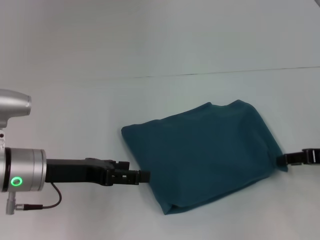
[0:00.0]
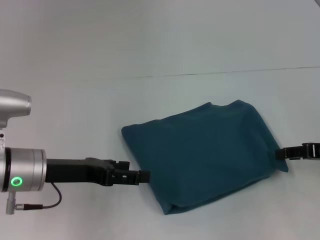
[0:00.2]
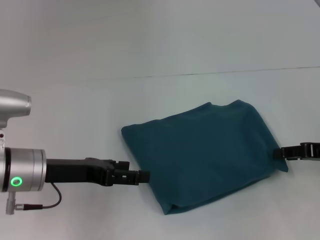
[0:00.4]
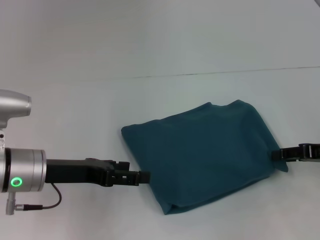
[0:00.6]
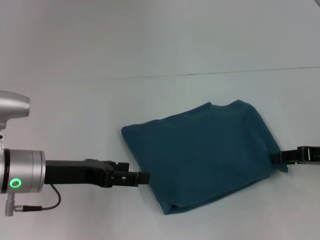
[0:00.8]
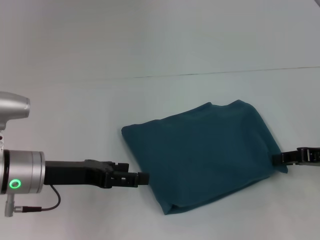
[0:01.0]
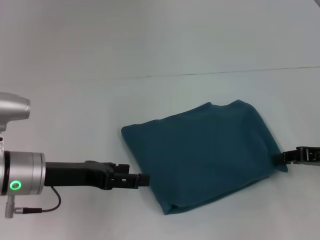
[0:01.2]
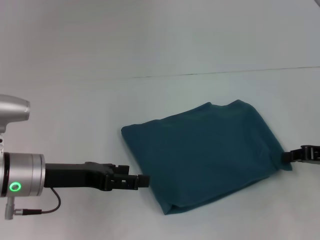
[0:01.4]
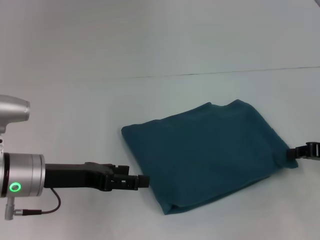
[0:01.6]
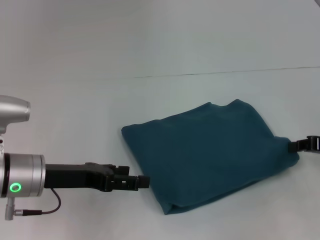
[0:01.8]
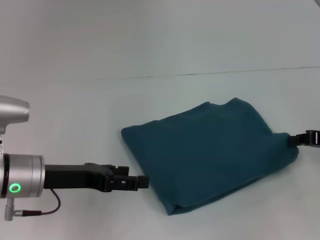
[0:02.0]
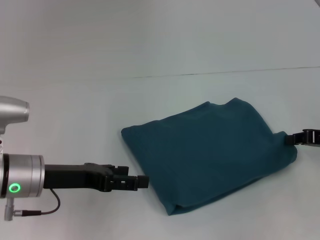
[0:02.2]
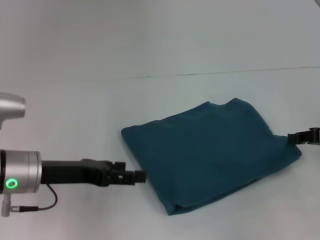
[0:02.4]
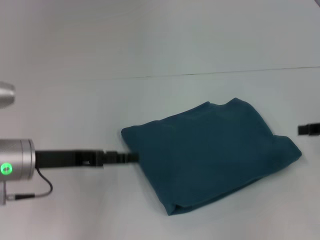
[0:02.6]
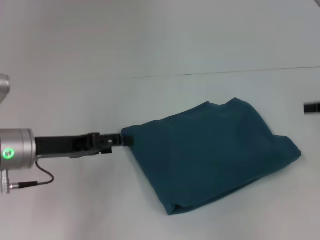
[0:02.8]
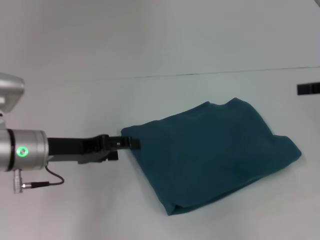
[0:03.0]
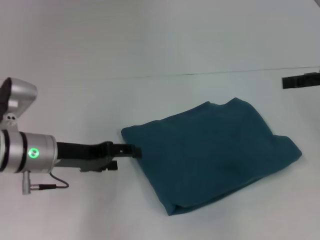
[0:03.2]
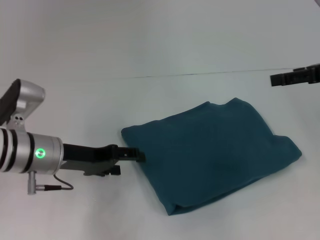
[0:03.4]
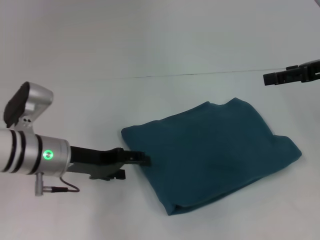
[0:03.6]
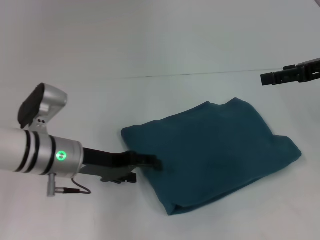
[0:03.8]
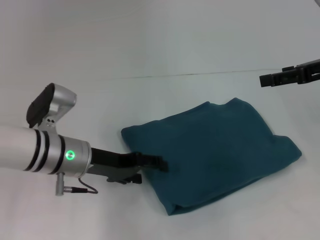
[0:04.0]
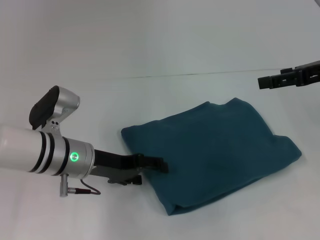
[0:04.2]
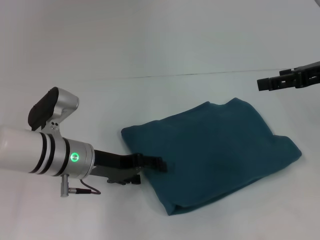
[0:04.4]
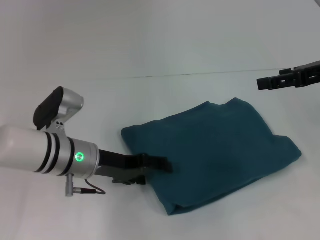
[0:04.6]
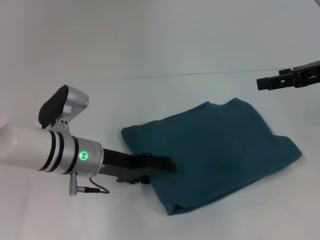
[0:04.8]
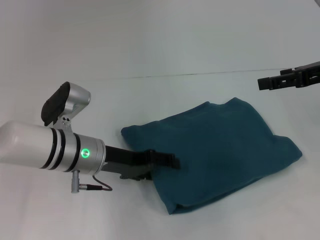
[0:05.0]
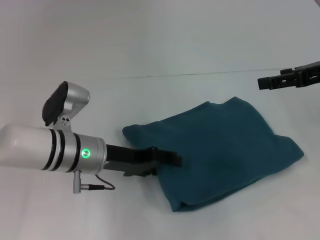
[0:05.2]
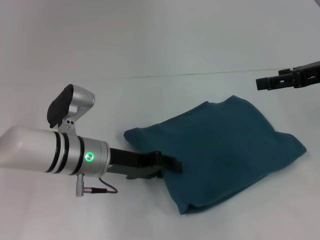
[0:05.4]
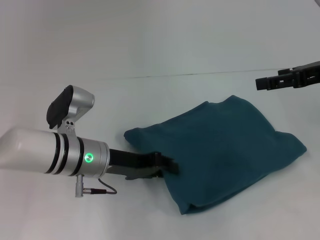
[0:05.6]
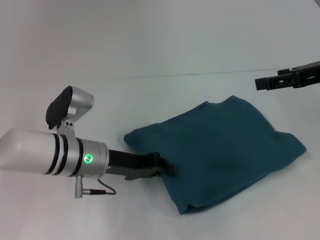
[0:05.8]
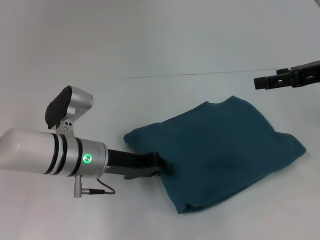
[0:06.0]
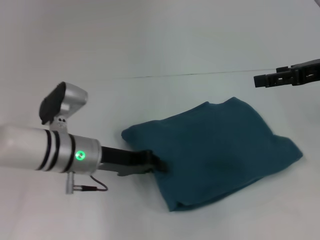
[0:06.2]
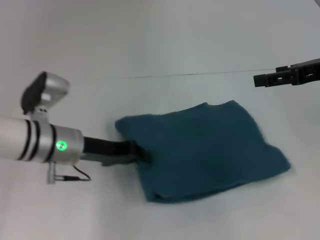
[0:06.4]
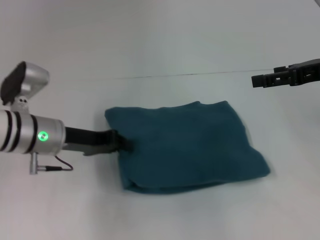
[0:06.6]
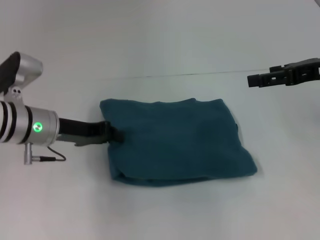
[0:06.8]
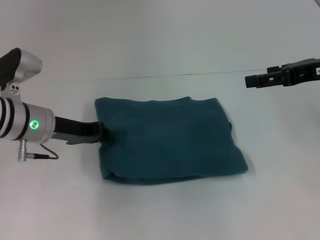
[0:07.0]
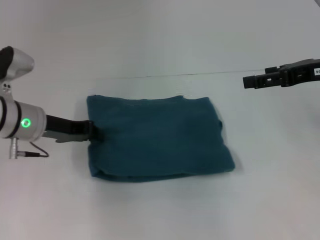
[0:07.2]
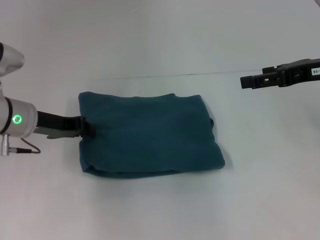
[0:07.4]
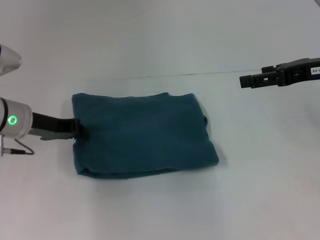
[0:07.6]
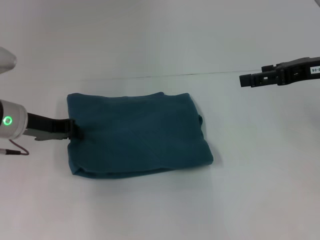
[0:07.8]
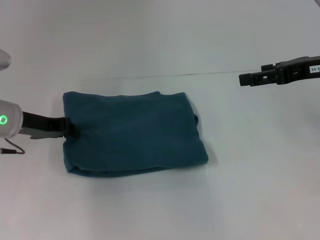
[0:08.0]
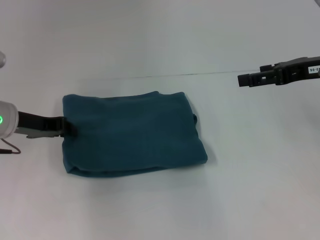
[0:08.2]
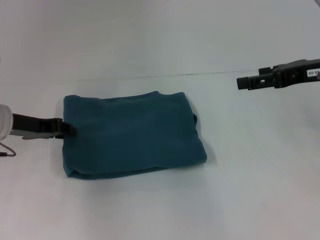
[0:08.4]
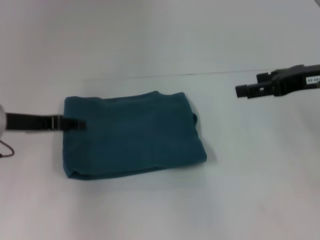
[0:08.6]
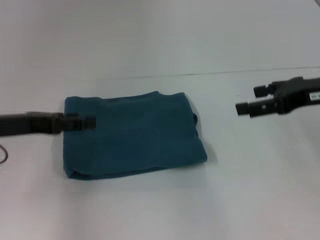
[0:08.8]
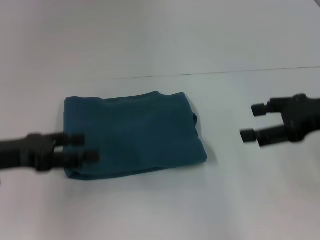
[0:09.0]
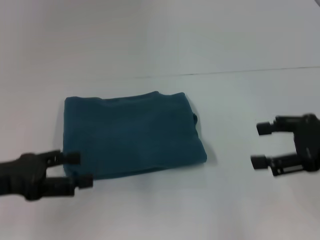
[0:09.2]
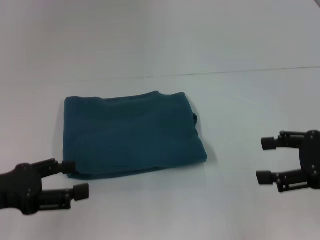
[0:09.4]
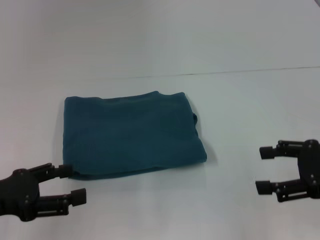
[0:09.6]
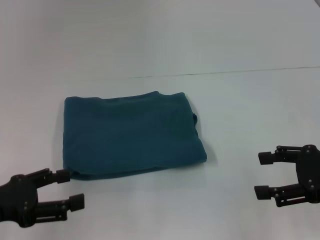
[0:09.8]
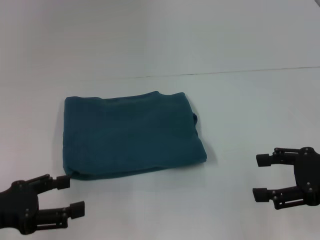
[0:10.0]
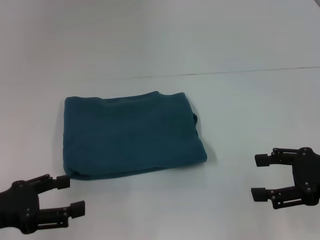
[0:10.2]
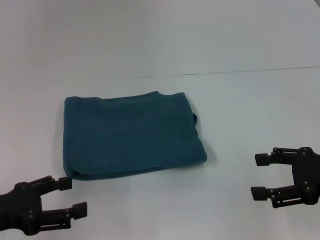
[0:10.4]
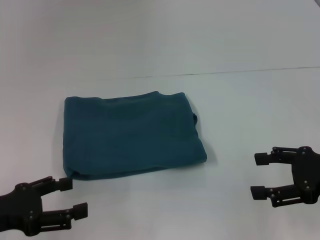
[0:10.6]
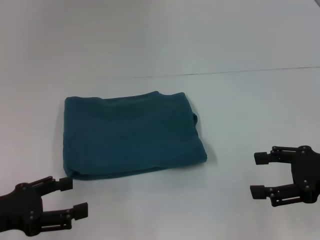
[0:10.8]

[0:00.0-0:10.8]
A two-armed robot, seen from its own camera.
0:00.0 to 0:01.6: The right gripper closes.
0:01.6 to 0:03.0: The right gripper goes some 10 cm upward, and opens its fingers.
0:03.0 to 0:04.6: The left gripper shifts about 5 cm to the right; the right gripper is displaced to the left by some 5 cm.
0:04.6 to 0:06.2: The left gripper closes.
0:06.2 to 0:07.8: The left gripper moves to the left, some 10 cm.
0:07.8 to 0:09.2: The left gripper goes some 15 cm backward, and opens up; the right gripper shifts roughly 10 cm backward.
0:09.2 to 0:10.8: The right gripper shifts by approximately 5 cm. The left gripper ends up about 5 cm from where it was.
